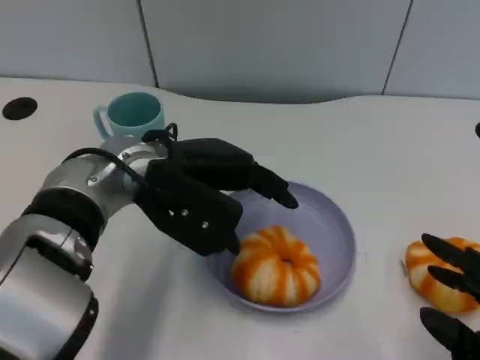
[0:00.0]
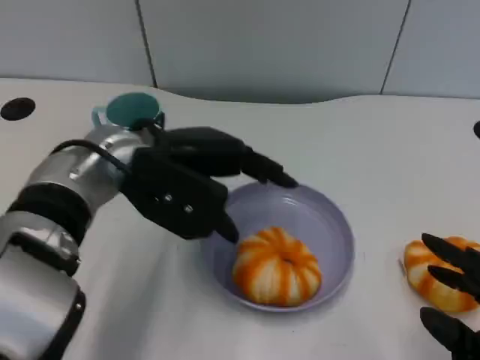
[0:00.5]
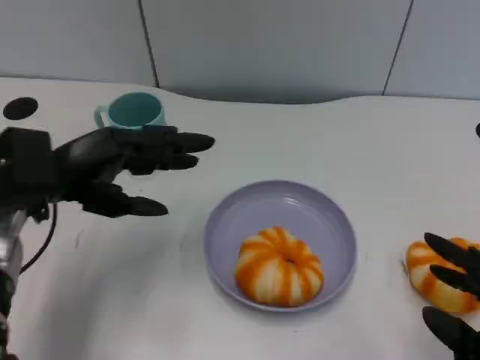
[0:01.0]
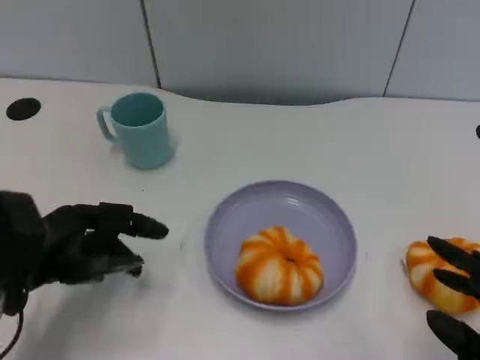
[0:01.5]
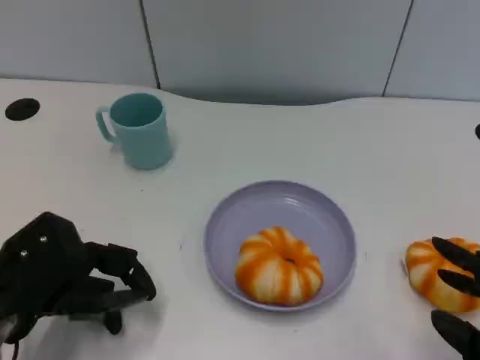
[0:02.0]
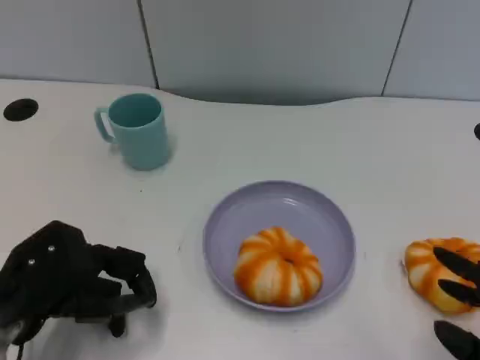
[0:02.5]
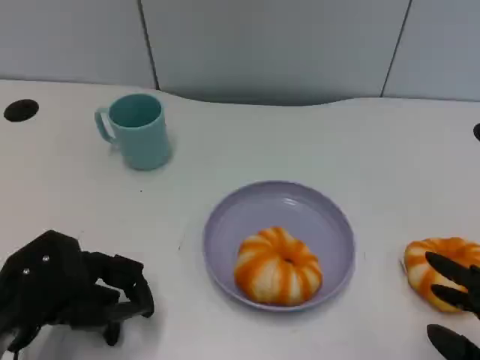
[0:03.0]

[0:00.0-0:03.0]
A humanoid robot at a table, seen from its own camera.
Task of the whole recording: Grasp the bread from the table and place it into the plate.
0:00.0 to 0:01.5: The left hand is displaced to the left, backward and downward by approximately 20 cm.
0:01.5 to 0:03.0: The hands make only small movements.

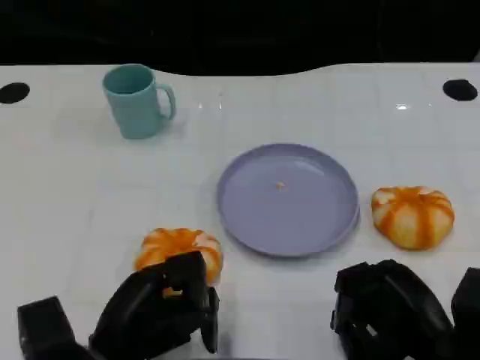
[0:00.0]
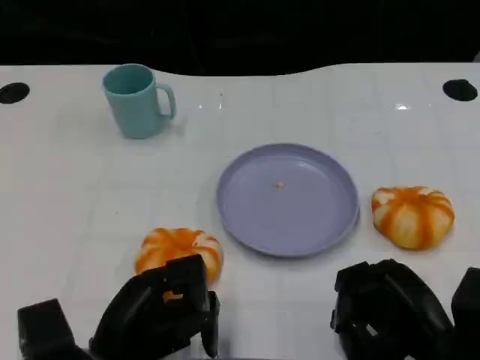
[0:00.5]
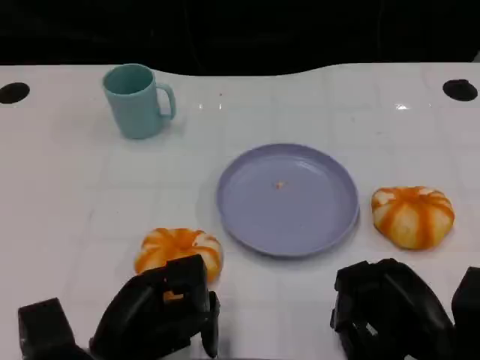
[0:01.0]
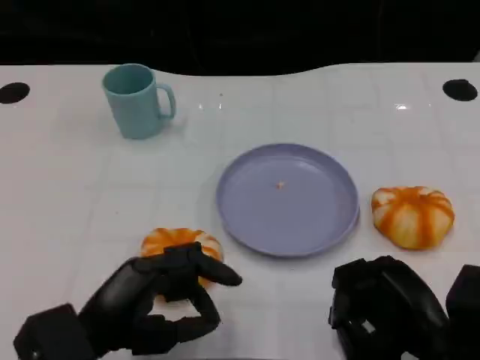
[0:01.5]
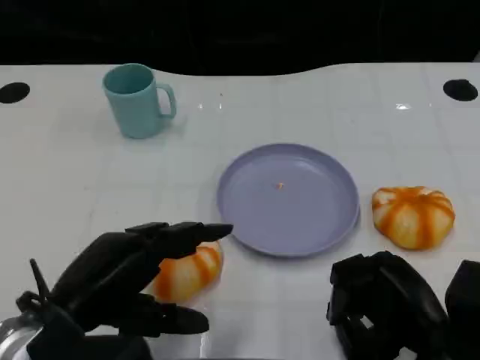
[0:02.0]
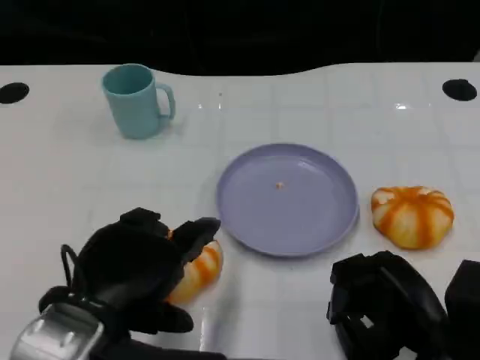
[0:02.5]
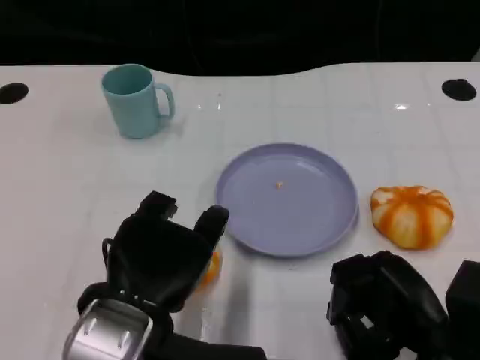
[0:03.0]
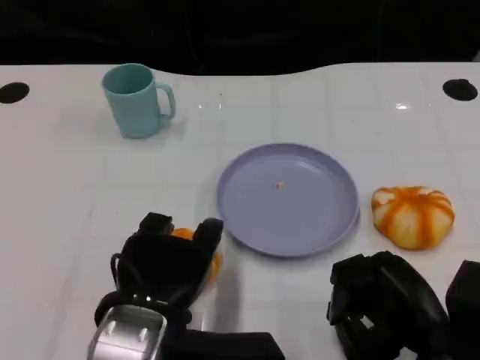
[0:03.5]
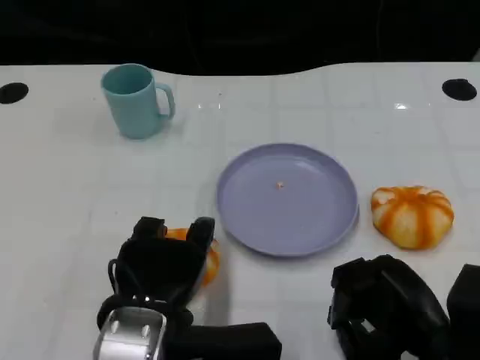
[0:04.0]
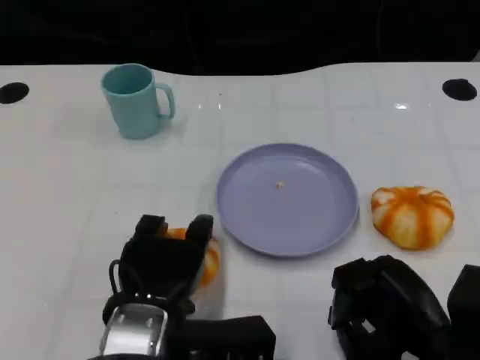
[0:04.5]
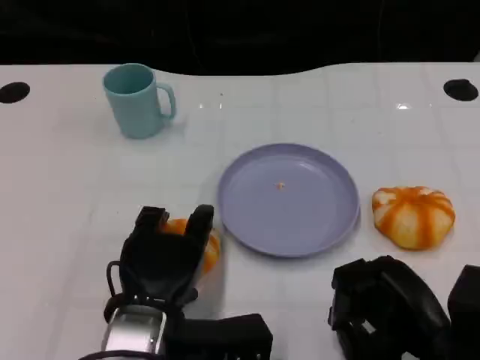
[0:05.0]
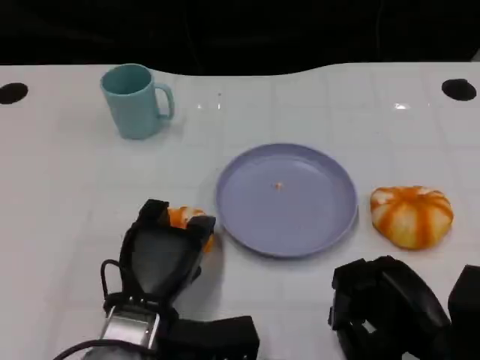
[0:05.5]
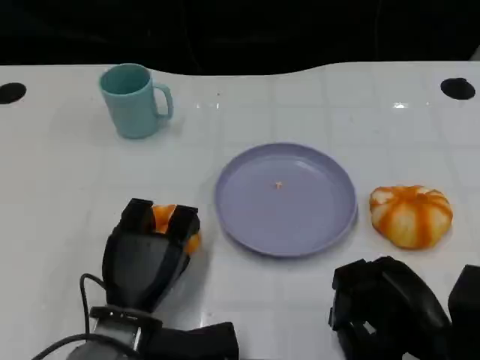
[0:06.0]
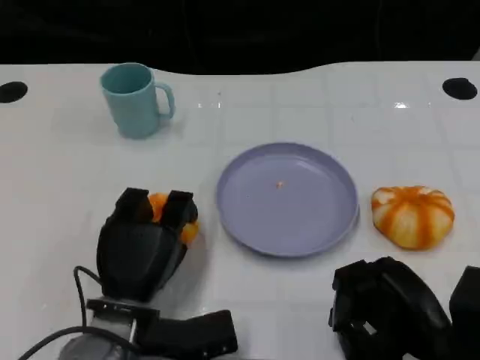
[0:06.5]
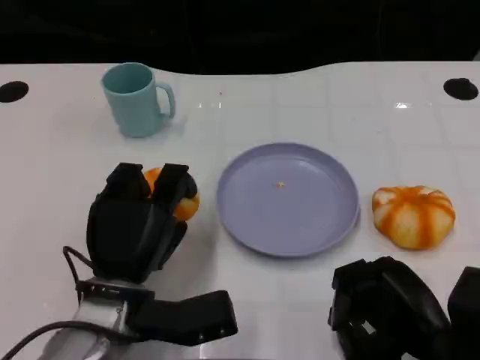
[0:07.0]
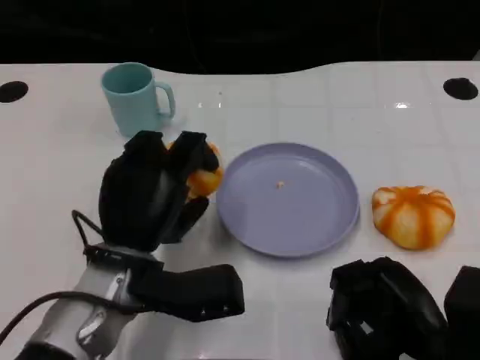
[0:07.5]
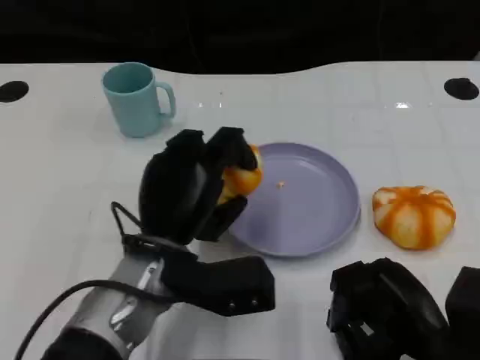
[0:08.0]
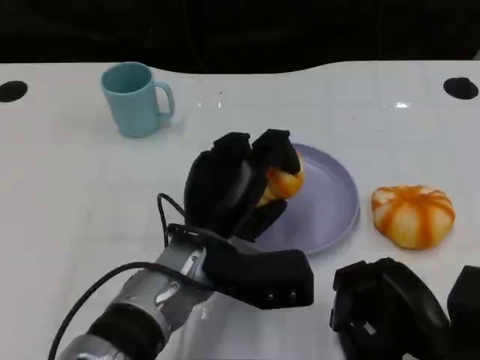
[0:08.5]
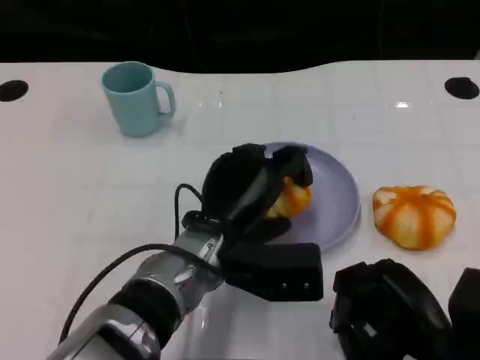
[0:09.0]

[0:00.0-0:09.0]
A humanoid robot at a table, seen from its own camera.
Task of the whole recording: Grasp the bread from the table and place it into the plate.
0:00.0 to 0:02.0: The left hand moves upward, roughly 10 cm.
0:02.0 to 0:04.5: The left hand is displaced to the right by approximately 10 cm.
0:07.0 to 0:09.0: The left hand is displaced to the right by about 10 cm.

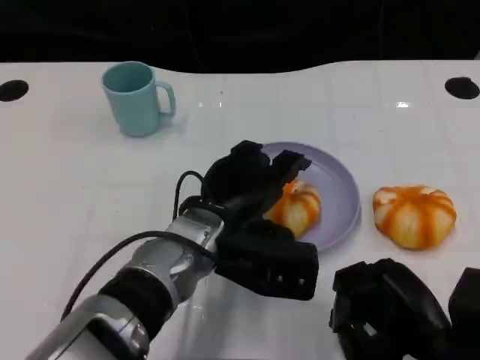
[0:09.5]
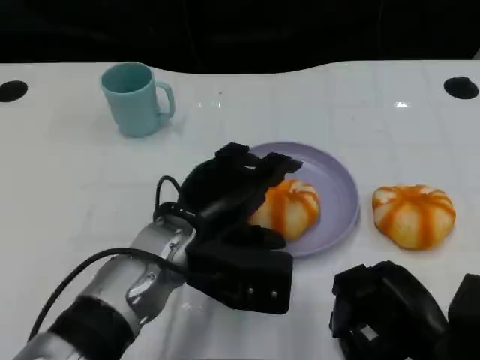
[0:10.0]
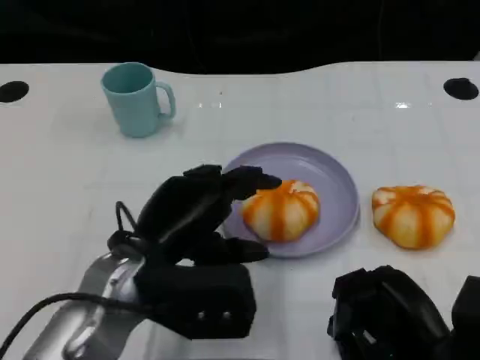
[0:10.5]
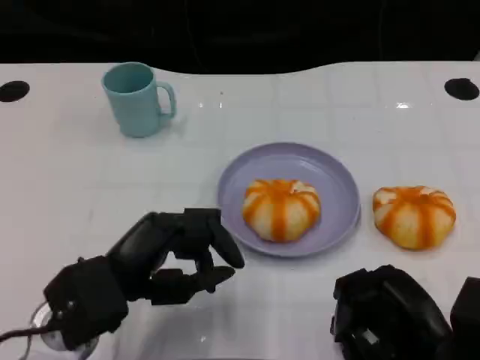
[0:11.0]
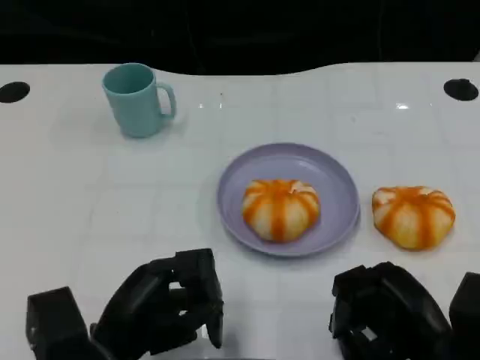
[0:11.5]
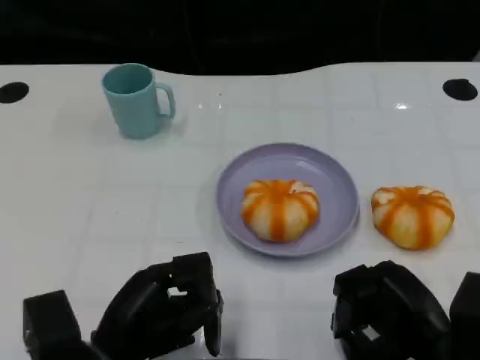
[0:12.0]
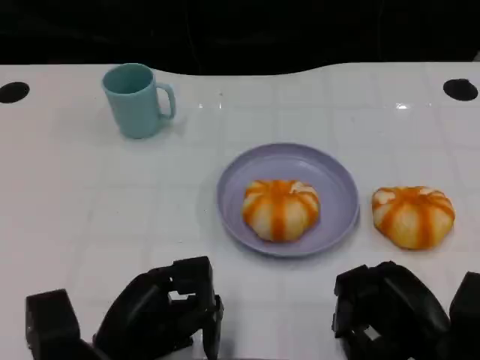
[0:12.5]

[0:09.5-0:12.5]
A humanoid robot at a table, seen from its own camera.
Task of the whole recording: Grasp the bread from the table and place it into the plate.
0:09.5 to 0:11.0: The left hand heads to the left and backward, covering about 15 cm.
0:11.0 to 0:12.5: The left hand ends up some 5 cm from where it was.

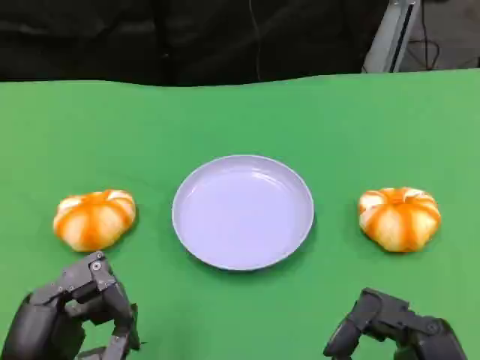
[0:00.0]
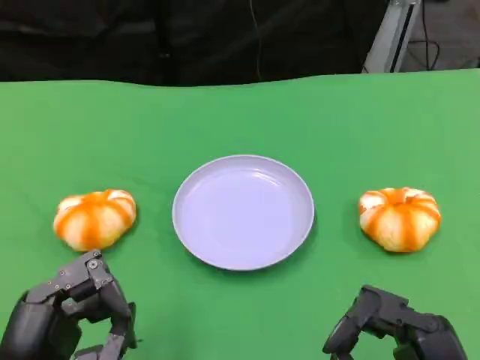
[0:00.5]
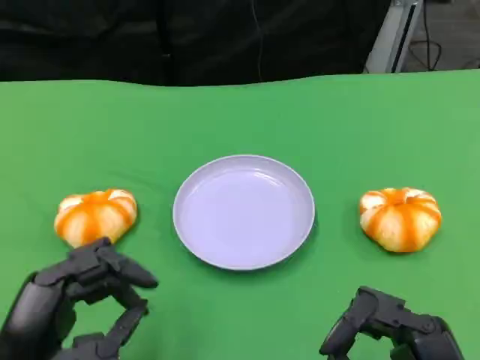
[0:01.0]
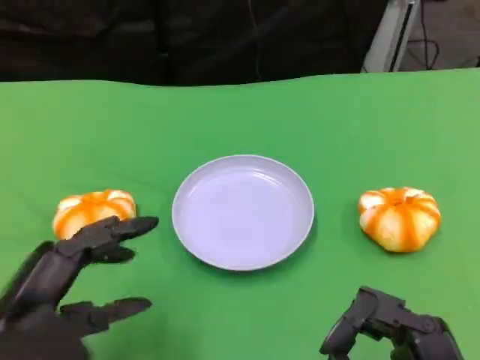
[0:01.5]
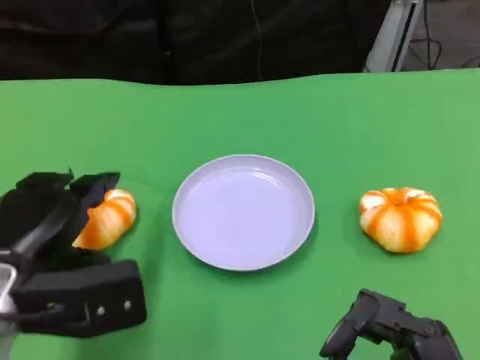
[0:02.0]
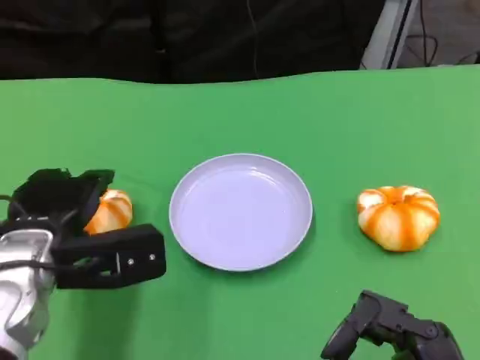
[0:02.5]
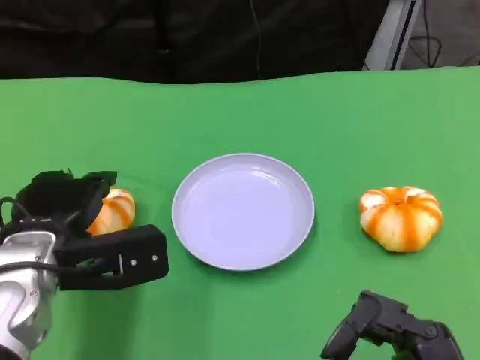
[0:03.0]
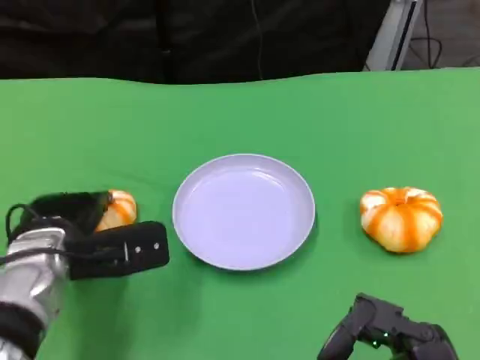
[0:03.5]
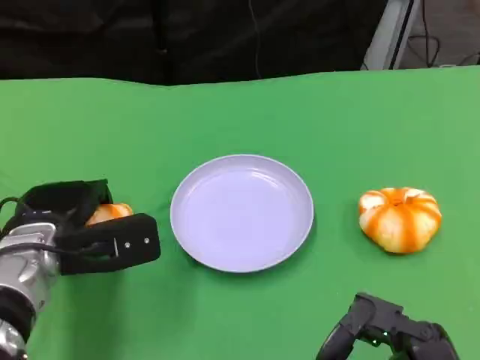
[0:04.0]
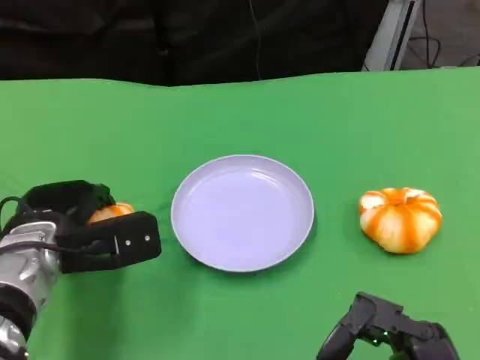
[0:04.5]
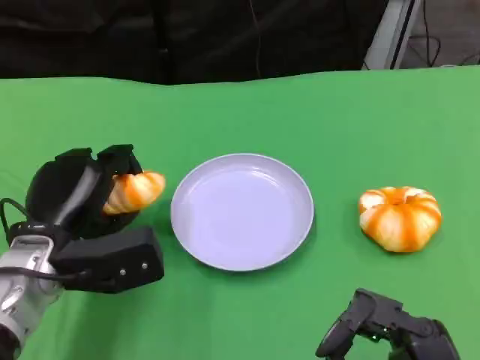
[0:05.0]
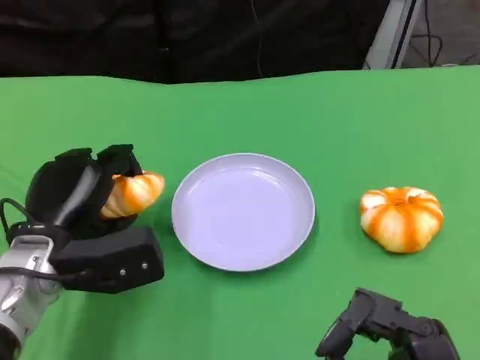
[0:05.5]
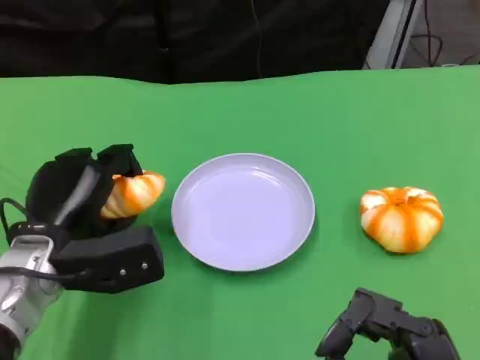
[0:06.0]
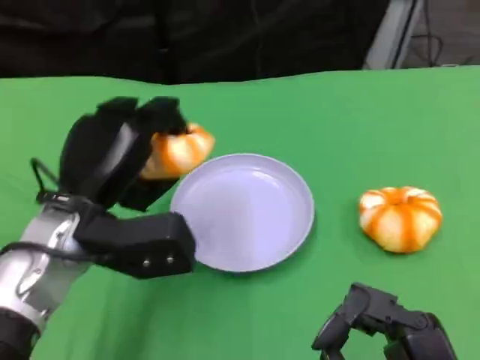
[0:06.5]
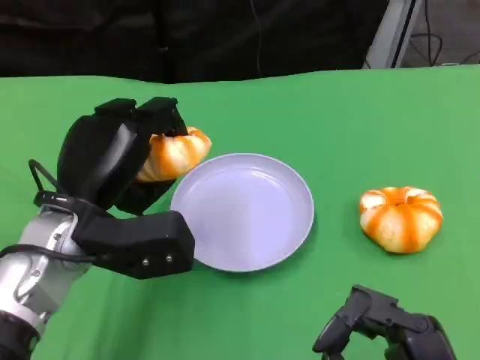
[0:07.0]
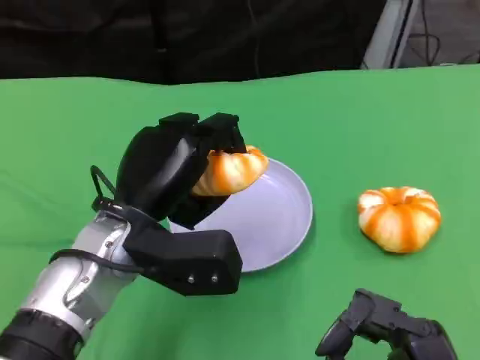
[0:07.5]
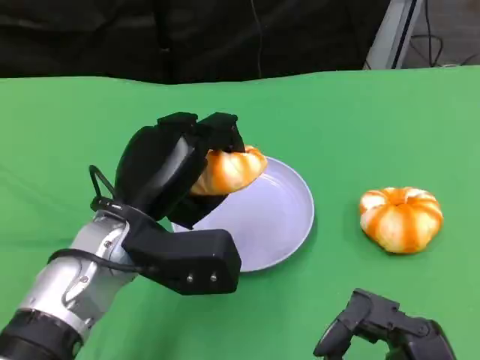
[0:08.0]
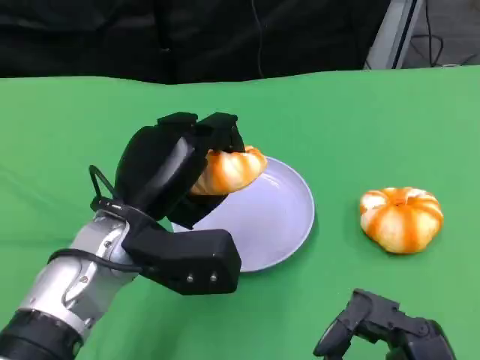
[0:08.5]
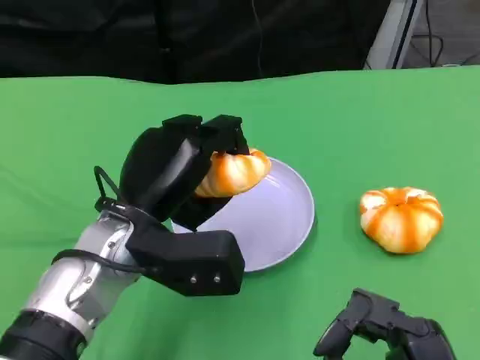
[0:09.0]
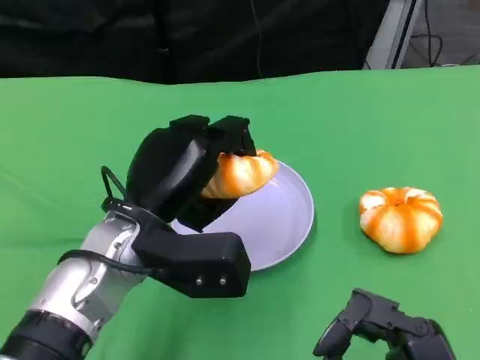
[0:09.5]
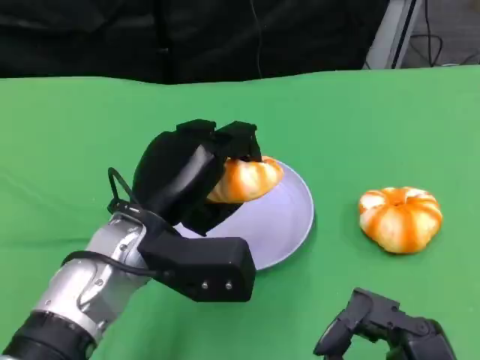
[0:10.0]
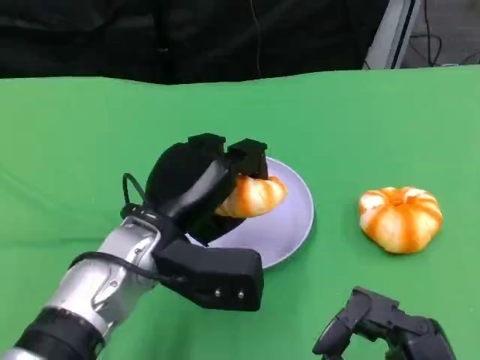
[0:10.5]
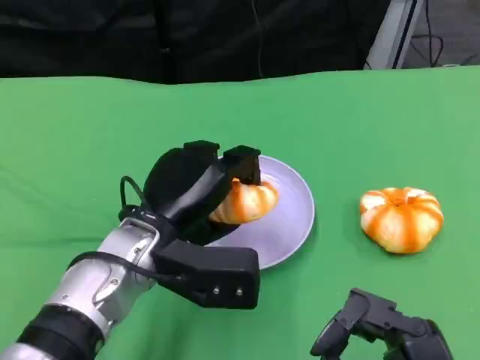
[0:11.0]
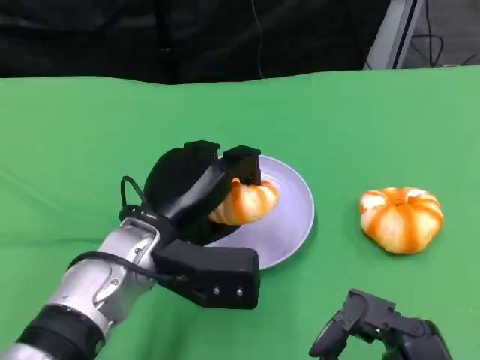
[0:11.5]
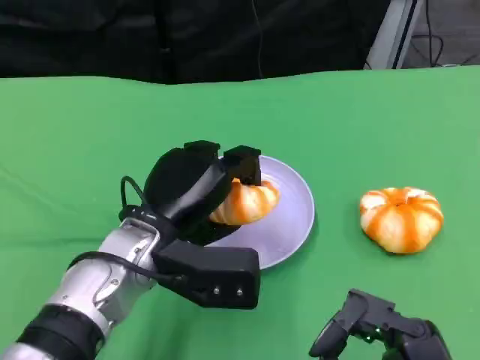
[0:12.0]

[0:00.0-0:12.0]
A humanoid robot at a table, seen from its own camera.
Task of the whole recording: Grasp the bread from the table and place it into the plate.
0:00.0 to 0:02.0: The left hand moves forward, some 10 cm.
0:02.0 to 0:04.0: The left hand heads forward and downward, covering some 10 cm.
0:06.0 to 0:08.0: The left hand shifts about 10 cm to the right.
0:08.0 to 0:10.0: Both hands stay put.
0:10.0 to 0:12.0: There are only small adjustments of the hands.
